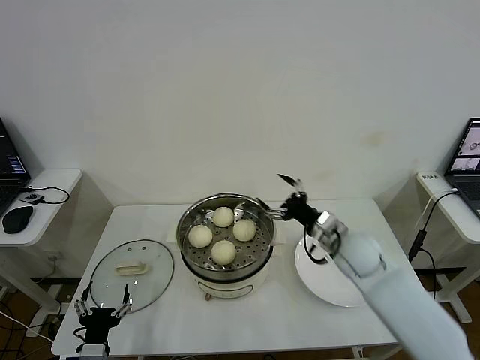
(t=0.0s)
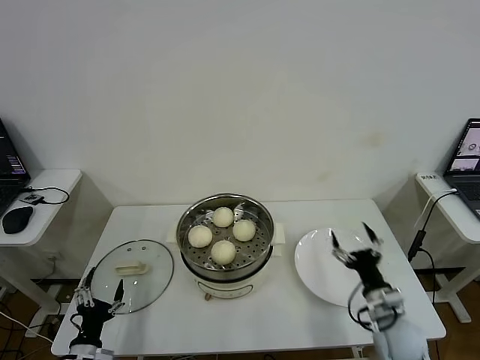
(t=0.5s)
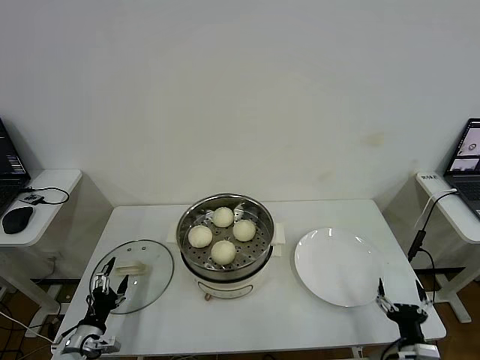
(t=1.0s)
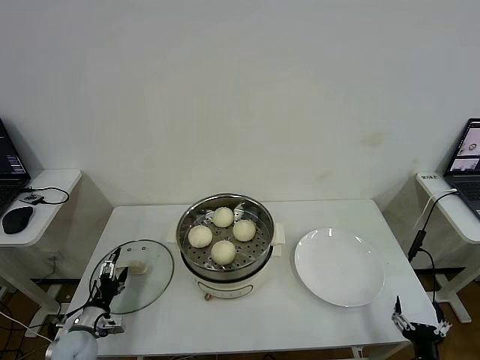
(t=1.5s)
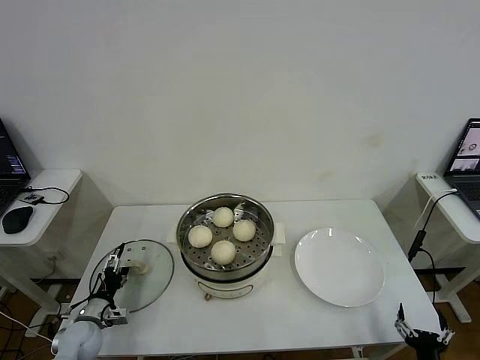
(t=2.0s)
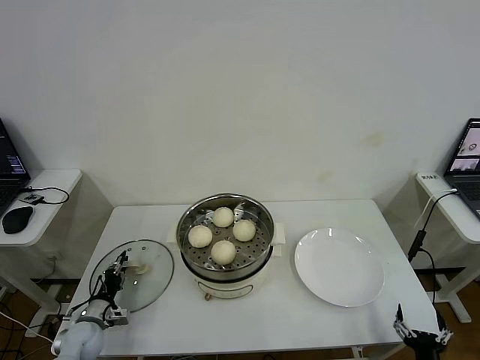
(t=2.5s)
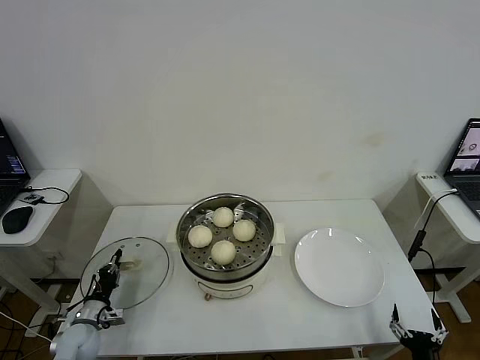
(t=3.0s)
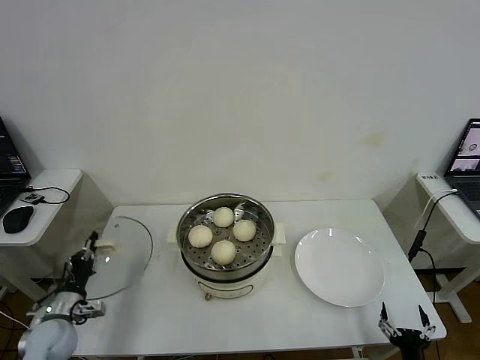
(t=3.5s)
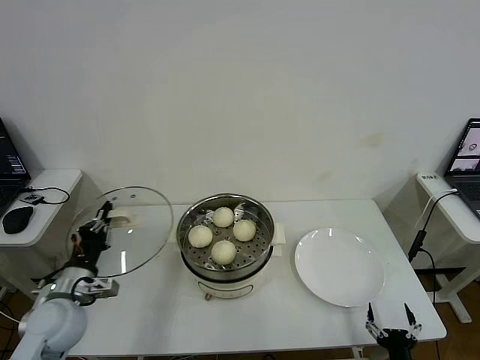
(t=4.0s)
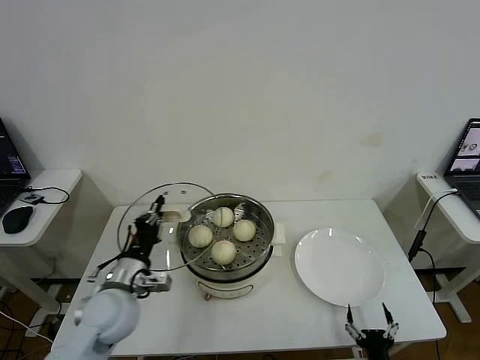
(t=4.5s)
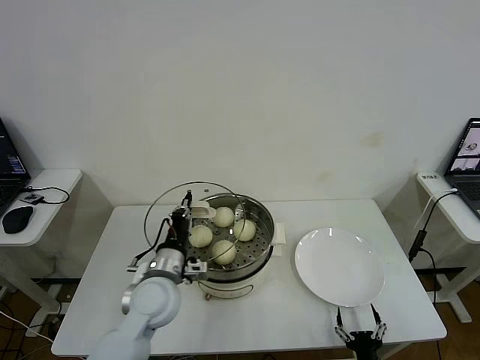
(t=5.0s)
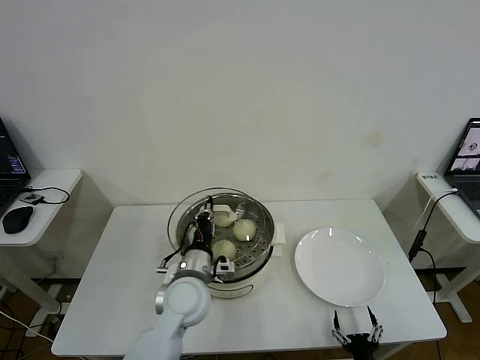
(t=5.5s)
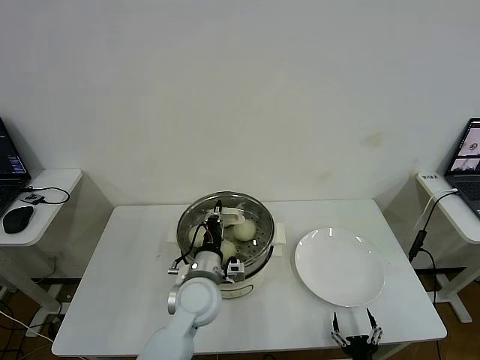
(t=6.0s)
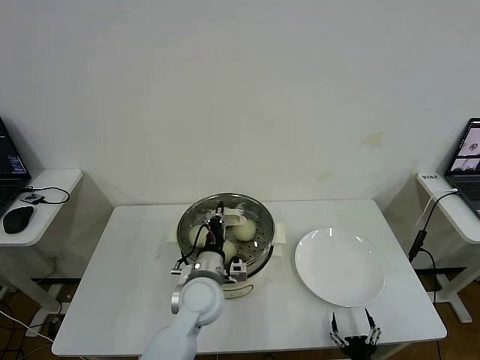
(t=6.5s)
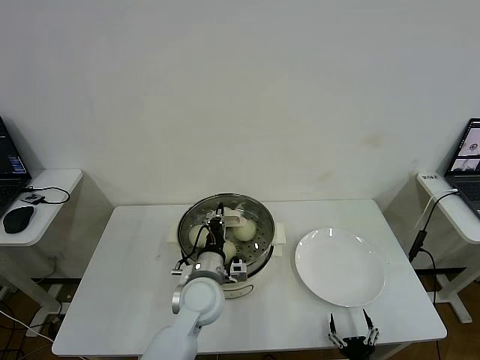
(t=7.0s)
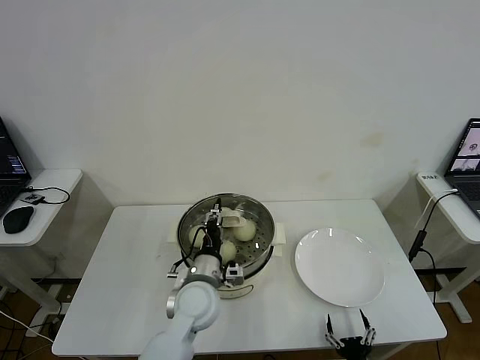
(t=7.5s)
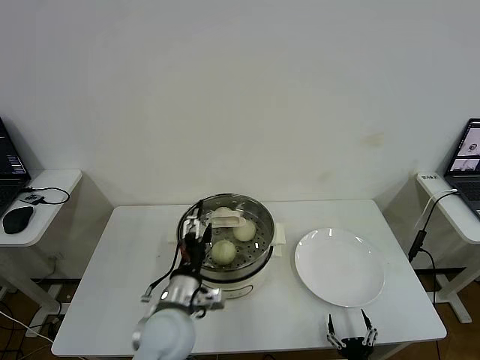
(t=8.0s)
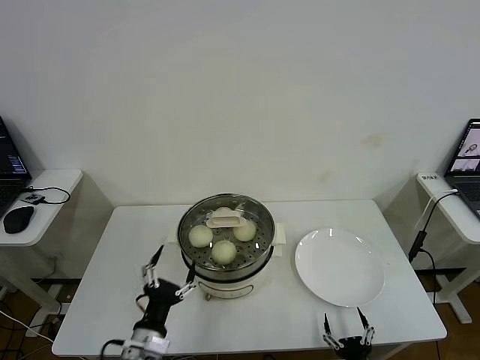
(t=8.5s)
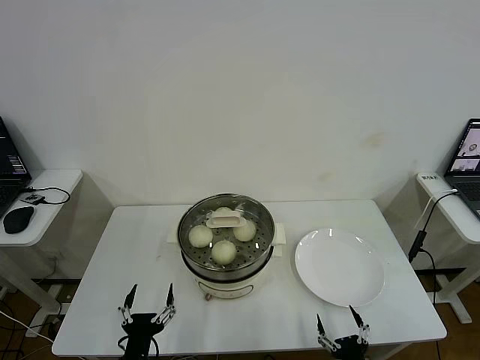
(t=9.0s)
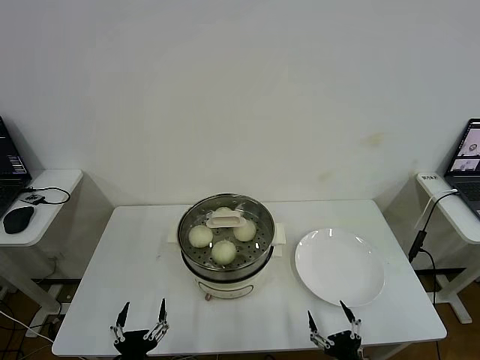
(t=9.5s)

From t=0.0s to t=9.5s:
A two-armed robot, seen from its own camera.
Step, from t=0.0s to t=2.5s: Grasp the pot lid with left gripper.
Step, from t=3.0s to t=7.5s: Place the pot lid on the steamer with left gripper.
From t=0.0s to t=2.0s: The left gripper shifts approximately 15 cm forward, to the left and downward. Meanwhile the right gripper is displaced backward, downward and to the right by roughly 40 cm.
From t=2.0s to t=4.0s: The left gripper heads upward, covering about 20 cm, and closes up.
From t=4.0s to t=5.5s: The right gripper moves to the left, about 5 cm; the left gripper travels to the right by roughly 25 cm.
From t=5.5s to t=7.5s: The left gripper opens up.
From t=7.5s to t=9.5s: The left gripper moves backward and to the left, roughly 25 cm, and opens its fingers, while the right gripper moves upward, some 5 cm.

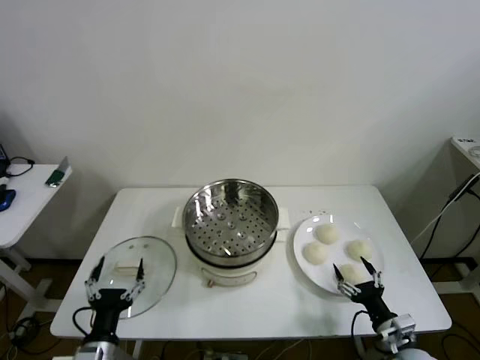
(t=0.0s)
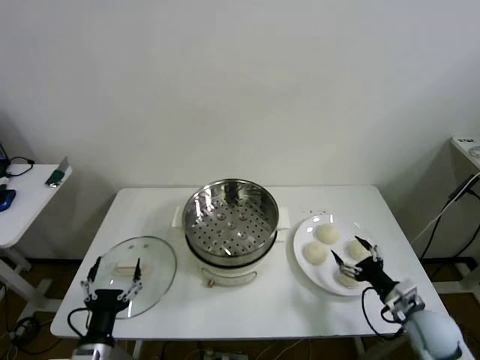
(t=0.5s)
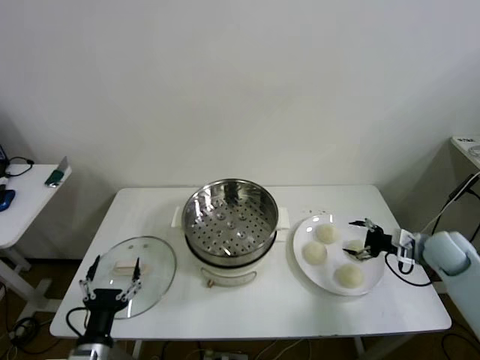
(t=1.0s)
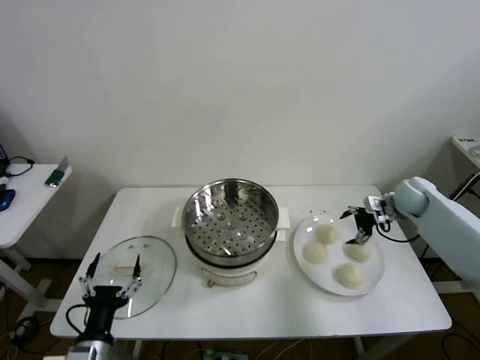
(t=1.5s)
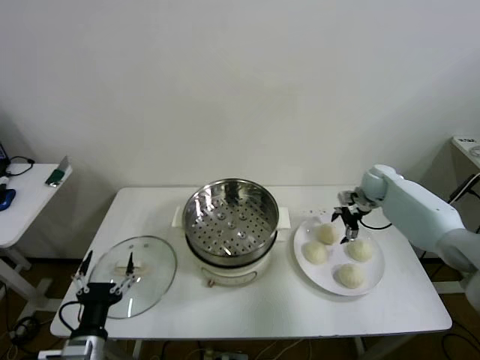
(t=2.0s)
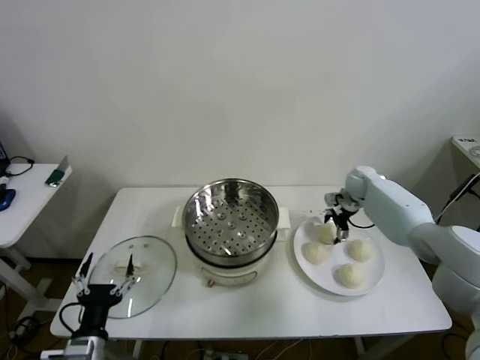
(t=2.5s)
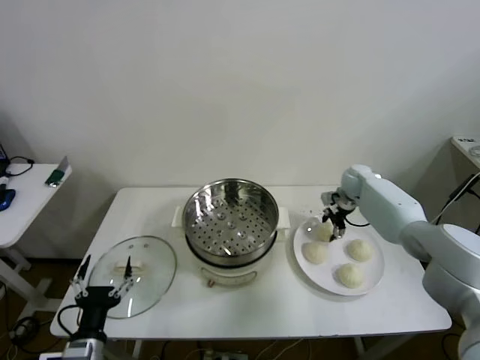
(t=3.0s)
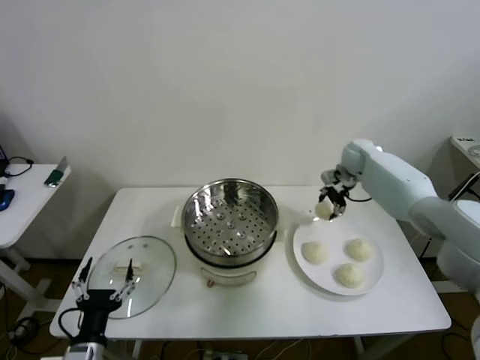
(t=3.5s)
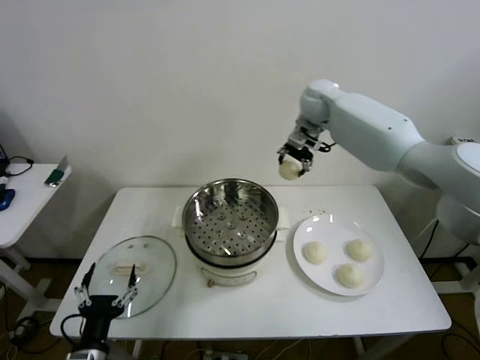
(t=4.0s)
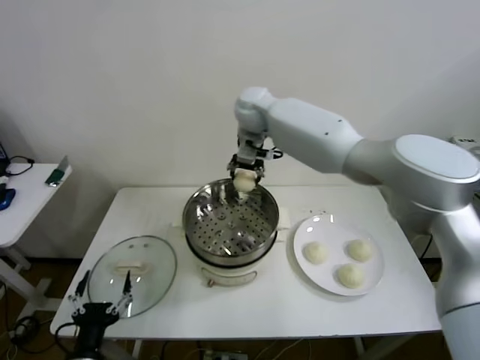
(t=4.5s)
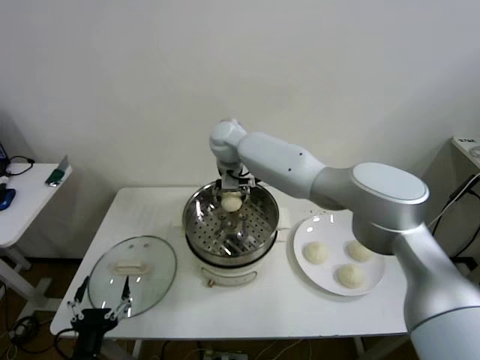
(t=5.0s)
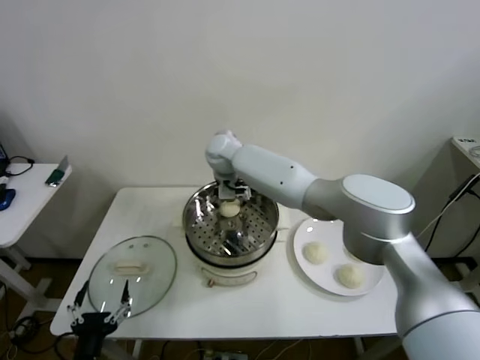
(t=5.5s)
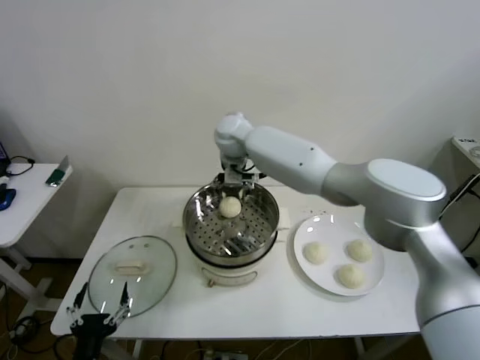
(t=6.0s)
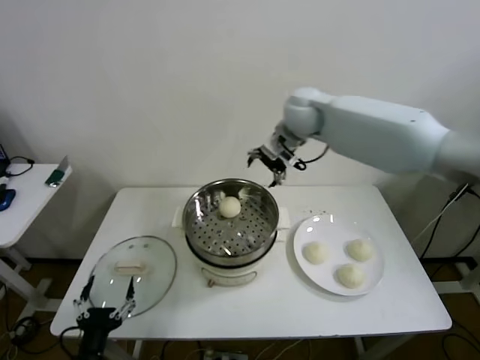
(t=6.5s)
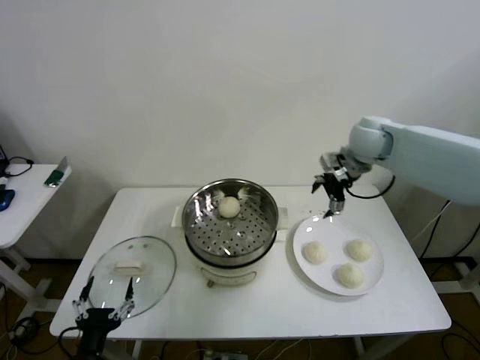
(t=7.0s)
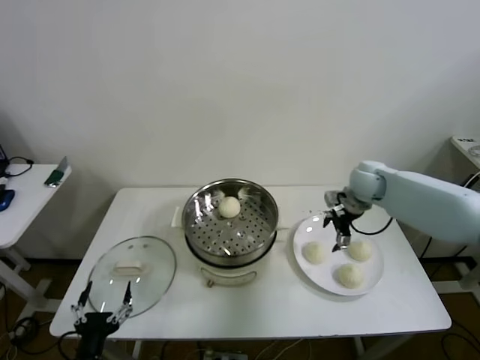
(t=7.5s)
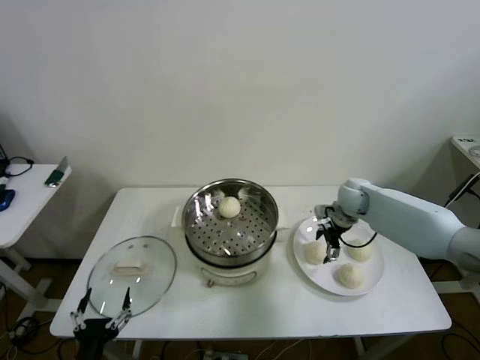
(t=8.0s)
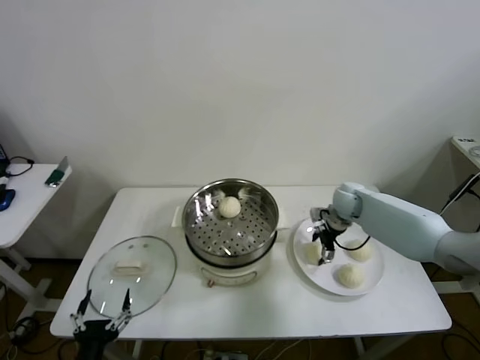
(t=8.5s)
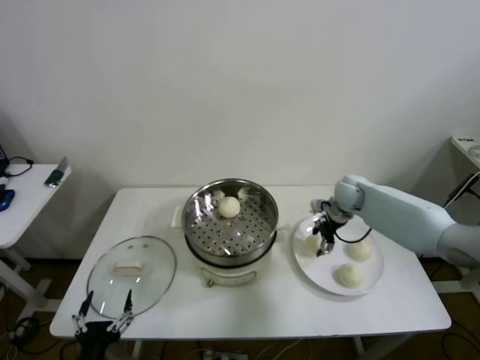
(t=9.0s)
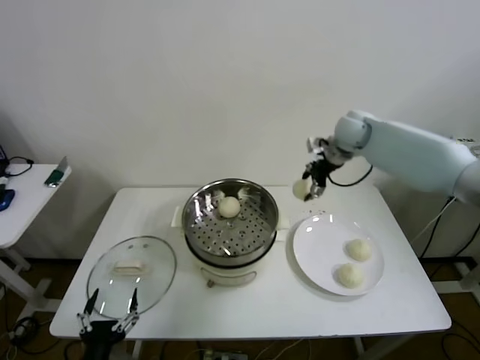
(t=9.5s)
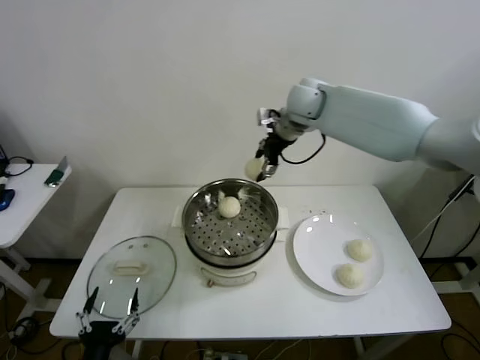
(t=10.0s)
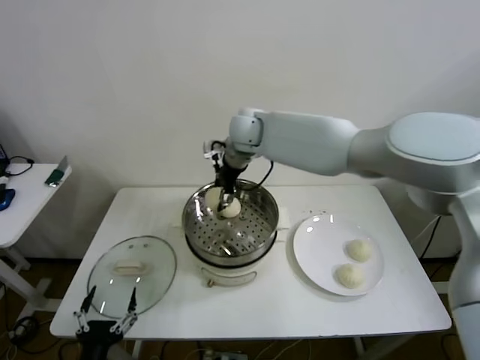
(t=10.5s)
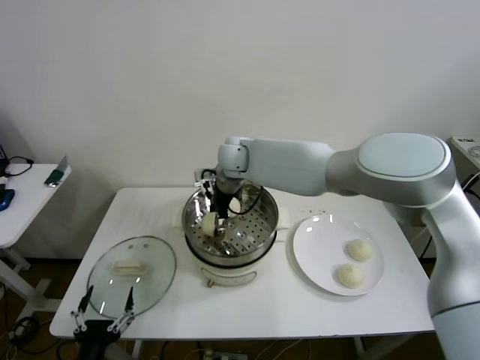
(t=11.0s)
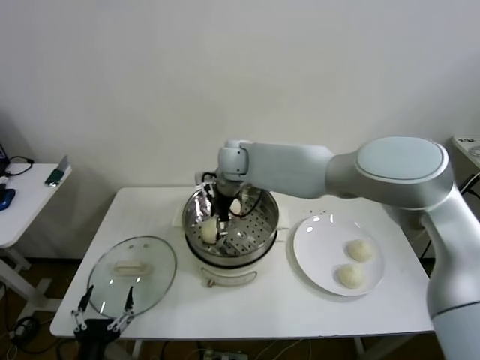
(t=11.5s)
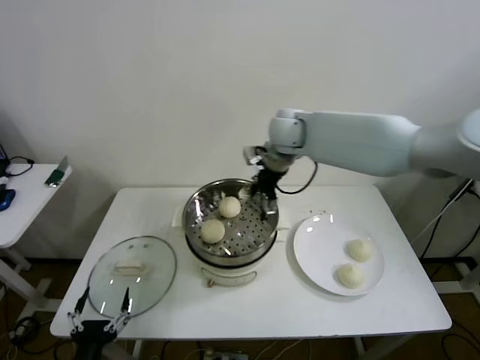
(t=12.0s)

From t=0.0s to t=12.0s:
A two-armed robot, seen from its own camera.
Step, from t=0.0s to t=3.0s: Grasp the baozi in the plate with right gripper.
Step, from t=3.5s to t=6.0s: Place the baozi on the steamer with right gripper.
Step, from t=6.5s to t=8.5s: Grasp the baozi in the plate with right gripper.
Step, from t=9.0s to t=11.5s: Place the baozi on the steamer with right gripper.
From t=2.0s to t=4.0s: The right gripper goes approximately 35 cm upward and to the left, and closes.
From t=4.0s to t=6.0s: The right gripper goes some 15 cm to the left, and opens up.
From t=6.0s to t=8.0s: The right gripper moves to the right and downward, approximately 35 cm.
From t=8.0s to t=10.0s: The right gripper shifts about 30 cm upward and to the left, and closes its fingers.
From t=10.0s to t=12.0s: The right gripper travels to the left and back again, approximately 15 cm each way, and opens its fingers.

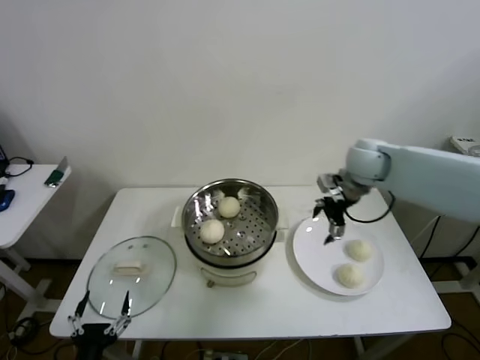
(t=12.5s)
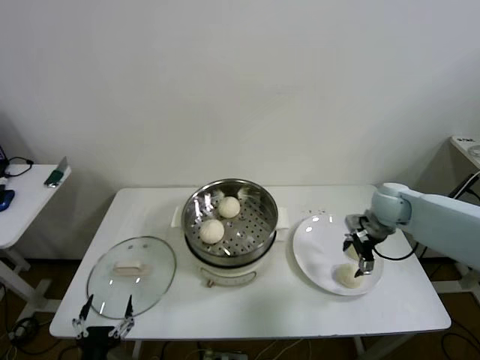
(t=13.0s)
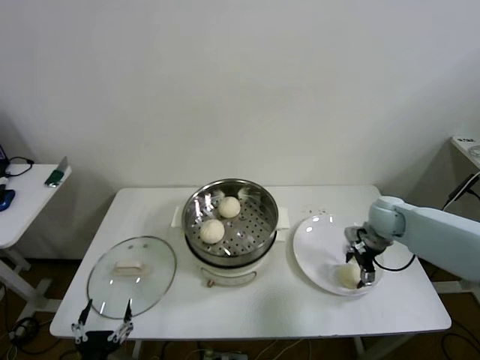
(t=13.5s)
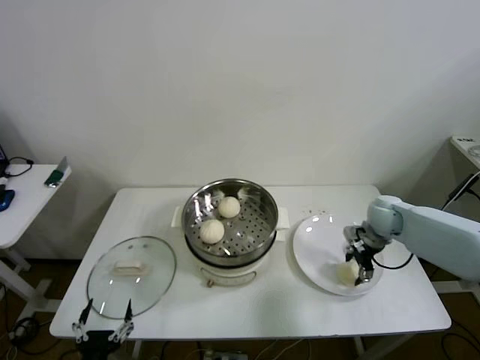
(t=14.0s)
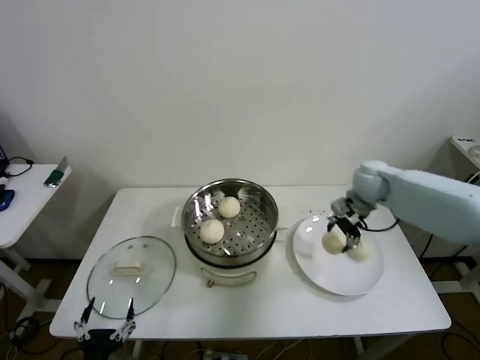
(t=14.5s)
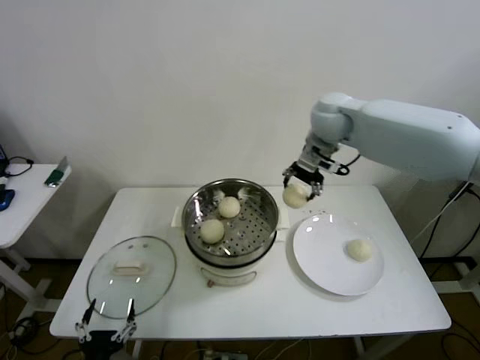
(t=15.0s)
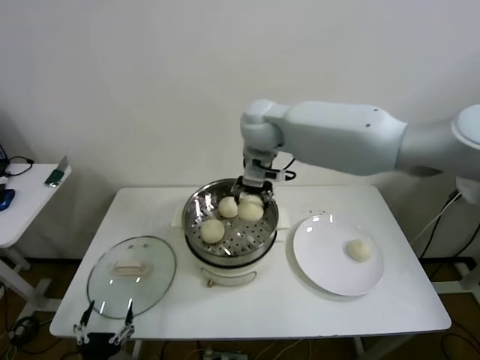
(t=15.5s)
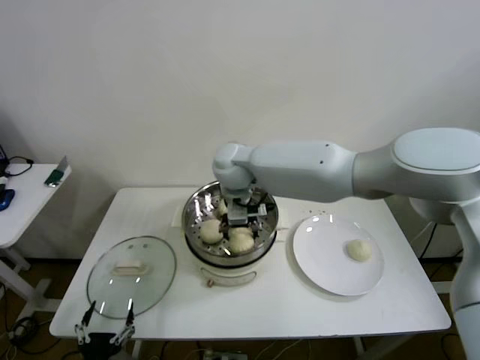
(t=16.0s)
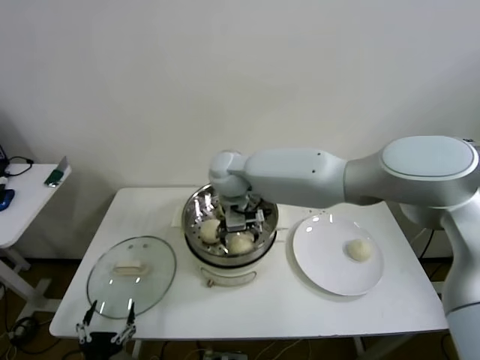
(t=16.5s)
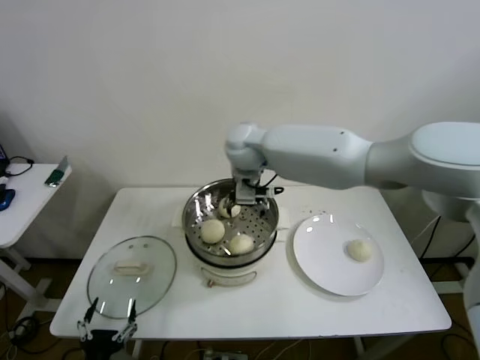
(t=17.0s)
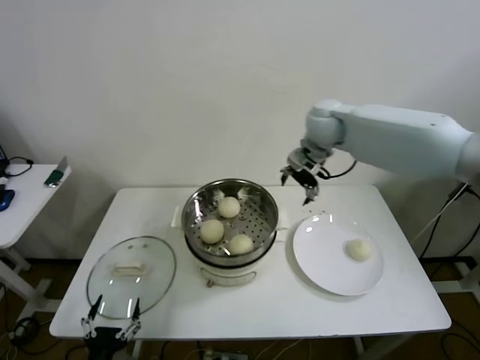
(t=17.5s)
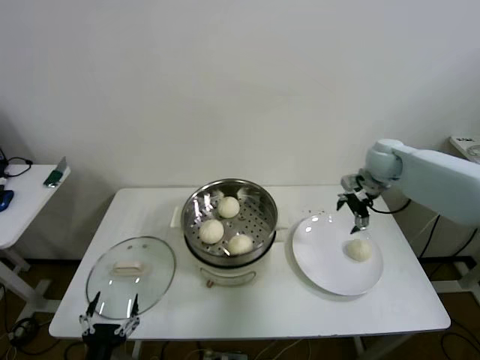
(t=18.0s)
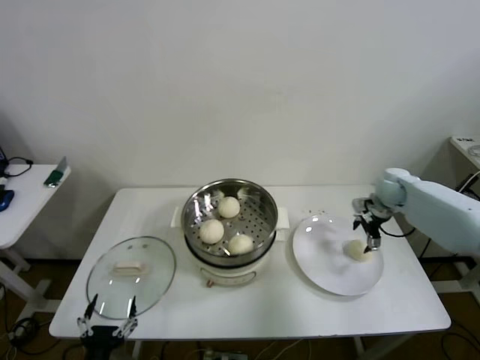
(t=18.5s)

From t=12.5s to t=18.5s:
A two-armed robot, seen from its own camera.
Step, from t=12.5s to t=14.0s: Grasp the baozi in the plate with right gripper.
Step, from t=14.5s to t=16.5s: Place the baozi on the steamer with right gripper.
From t=12.5s to t=14.5s: The right gripper moves some 15 cm downward and comes back, and closes up.
From t=14.5s to t=16.5s: The right gripper heads to the left, covering approximately 35 cm, and opens.
From t=16.5s to t=18.5s: The right gripper travels to the right by approximately 40 cm.
